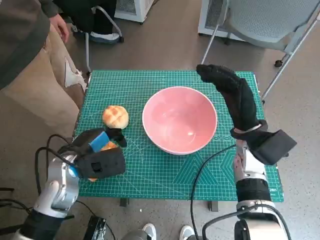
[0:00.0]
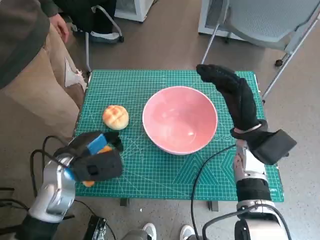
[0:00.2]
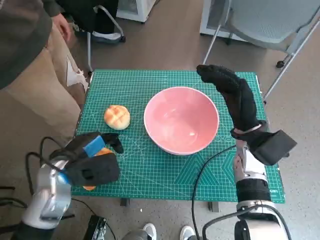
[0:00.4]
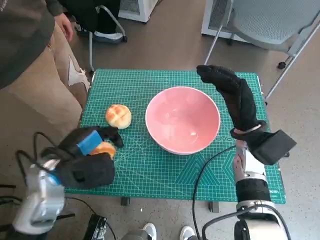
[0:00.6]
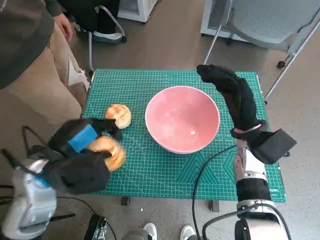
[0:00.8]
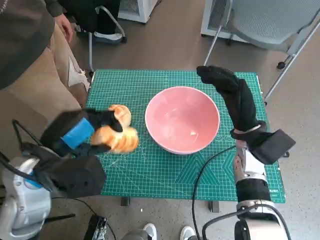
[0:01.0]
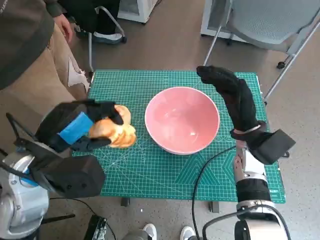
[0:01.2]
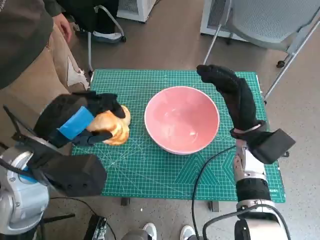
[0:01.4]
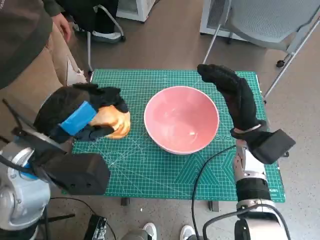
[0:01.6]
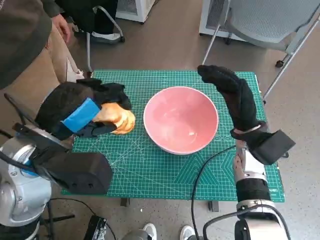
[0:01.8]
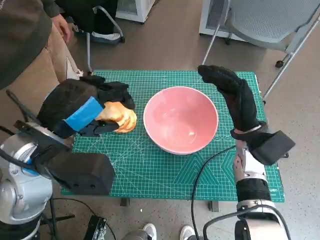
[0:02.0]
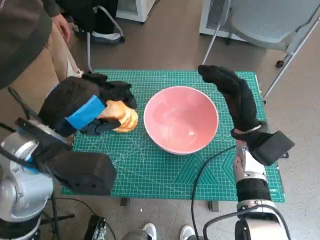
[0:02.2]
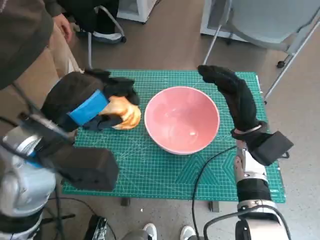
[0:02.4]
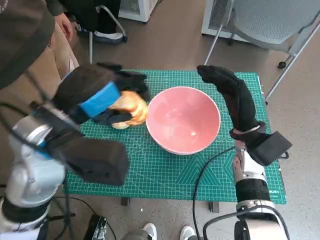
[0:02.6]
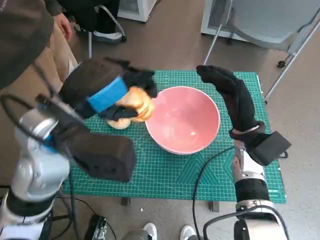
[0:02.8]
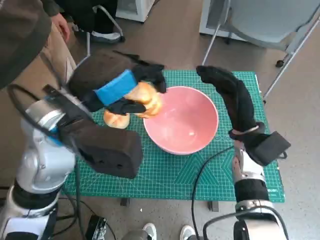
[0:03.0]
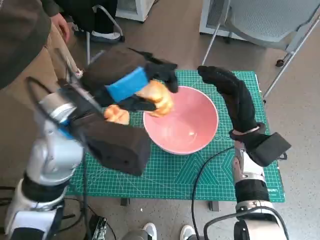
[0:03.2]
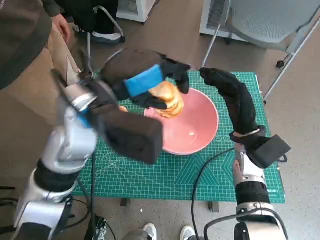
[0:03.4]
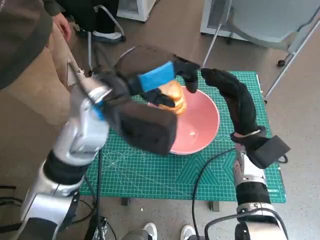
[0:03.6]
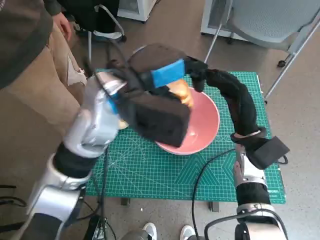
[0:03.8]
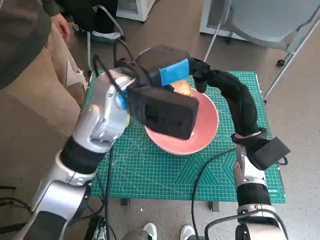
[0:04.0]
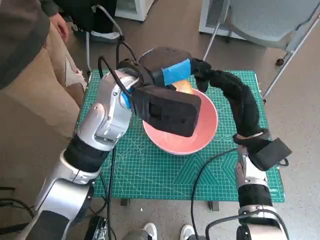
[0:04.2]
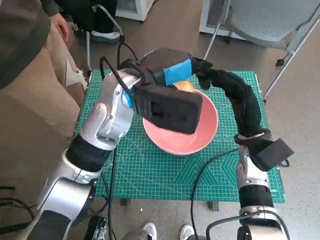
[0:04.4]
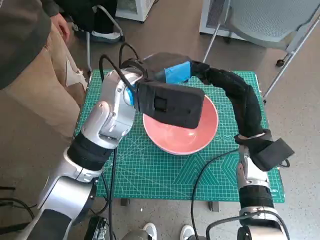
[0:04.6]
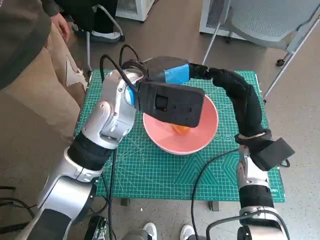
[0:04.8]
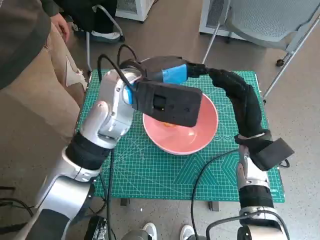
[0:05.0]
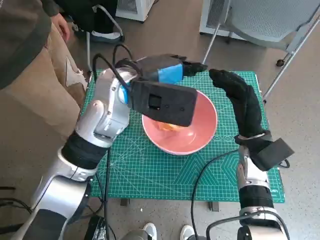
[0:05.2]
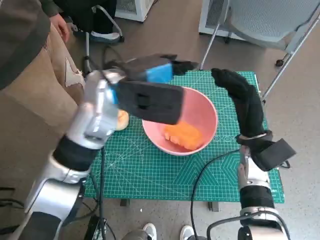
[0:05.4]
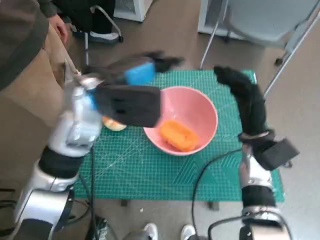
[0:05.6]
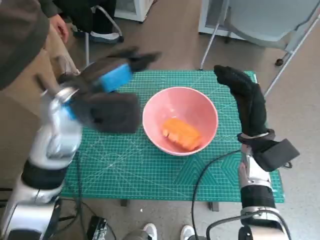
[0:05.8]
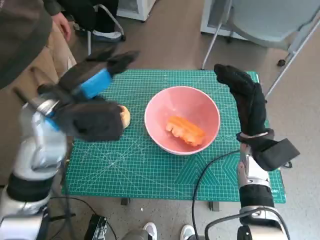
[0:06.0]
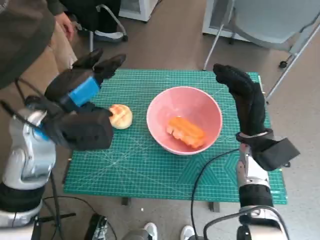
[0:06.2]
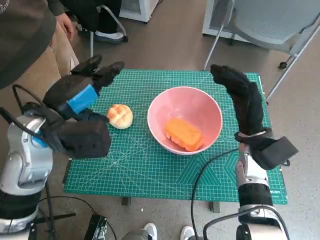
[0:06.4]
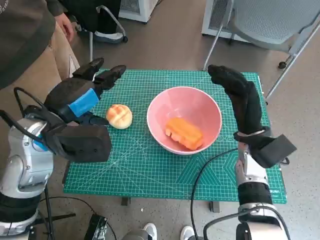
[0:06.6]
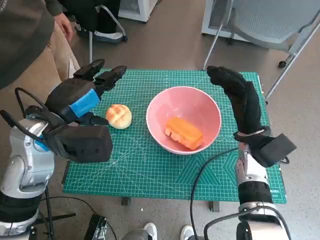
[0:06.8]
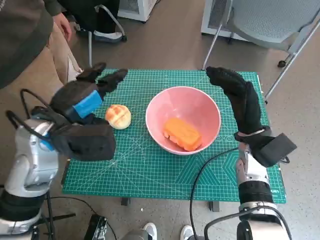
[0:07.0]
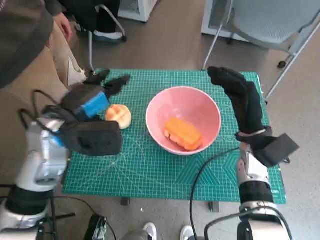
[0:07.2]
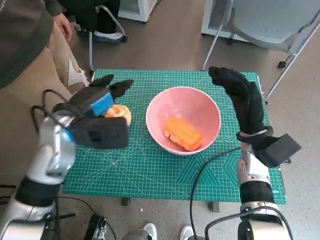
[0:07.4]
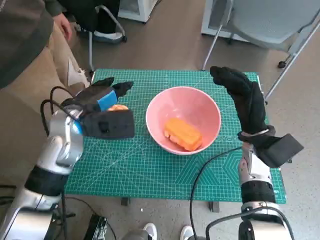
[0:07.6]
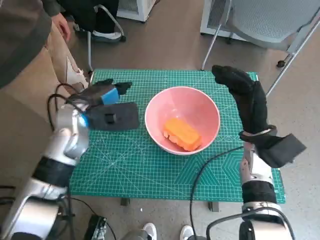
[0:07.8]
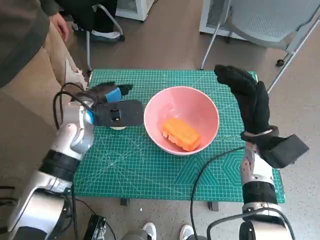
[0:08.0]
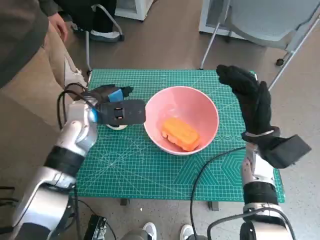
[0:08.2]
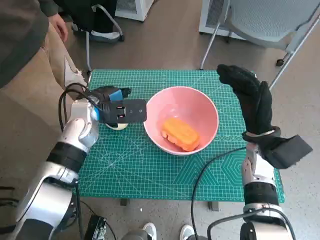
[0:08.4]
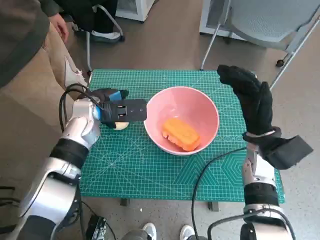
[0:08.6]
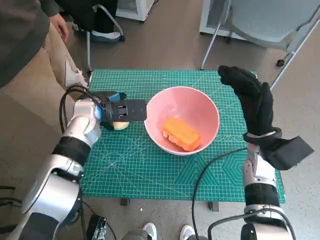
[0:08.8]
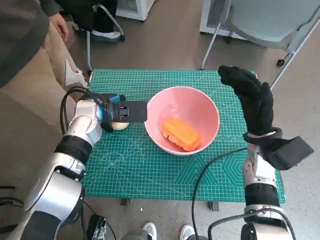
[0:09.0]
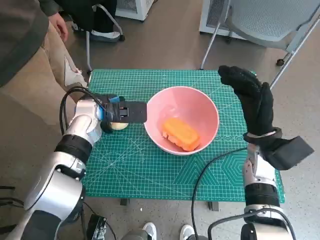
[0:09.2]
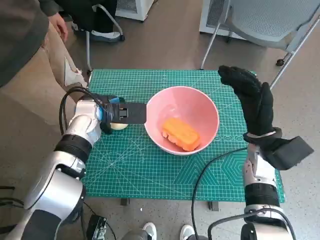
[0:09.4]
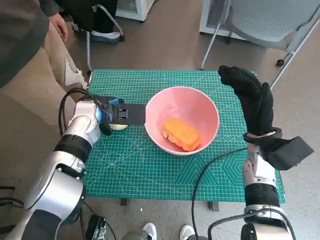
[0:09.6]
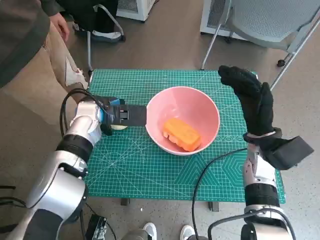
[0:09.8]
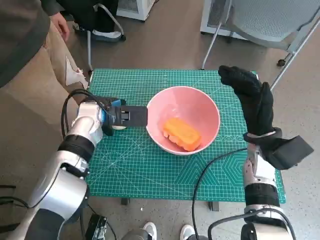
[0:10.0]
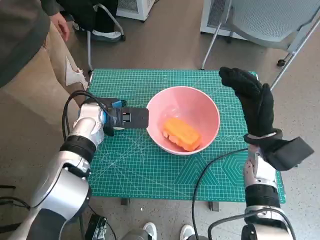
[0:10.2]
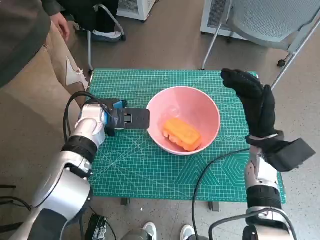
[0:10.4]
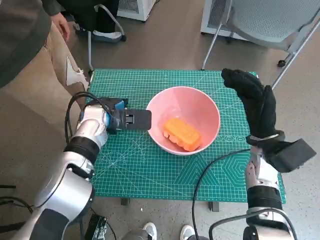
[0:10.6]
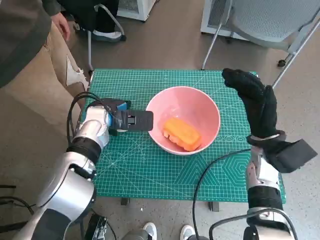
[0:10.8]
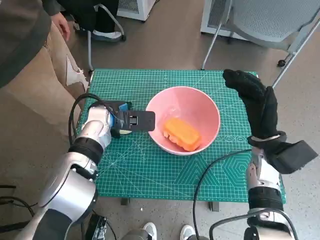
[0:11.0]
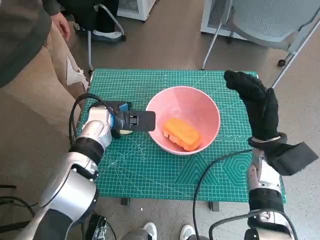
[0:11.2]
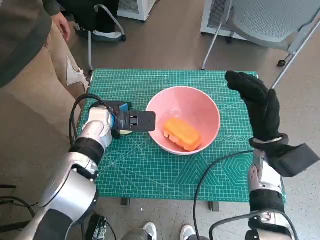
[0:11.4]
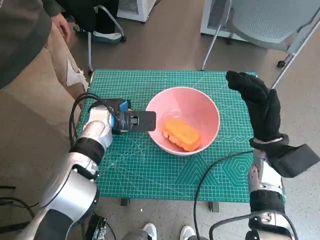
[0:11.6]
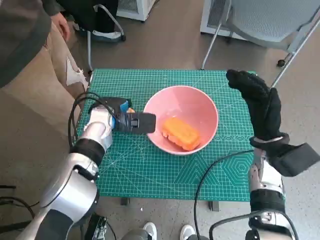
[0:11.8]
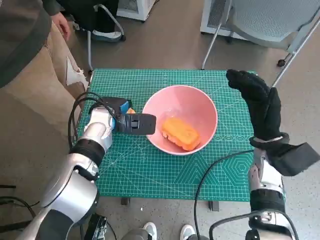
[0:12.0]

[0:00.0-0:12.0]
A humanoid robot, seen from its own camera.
Step, 0:00.0 to 0:05.2: Place the long bread in pink bowl with left hand.
Step, 0:05.4 to 0:11.4: Grasp the round bread with left hand.
0:00.0 to 0:01.6: The left hand shifts roughly 15 cm upward.
0:01.6 to 0:03.0: The left hand goes roughly 5 cm to the right.
0:03.0 to 0:04.4: The left hand goes some 10 cm forward and to the right.
0:04.4 to 0:06.0: The left hand moves to the left, about 10 cm.
0:06.0 to 0:07.6: The left hand travels downward by roughly 5 cm.
0:07.6 to 0:09.0: The left hand is displaced forward by some 5 cm.
0:09.0 to 0:12.0: There are only small adjustments of the hands.

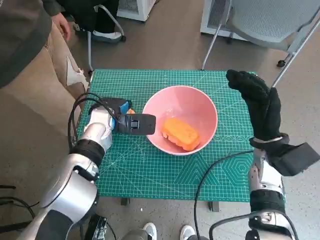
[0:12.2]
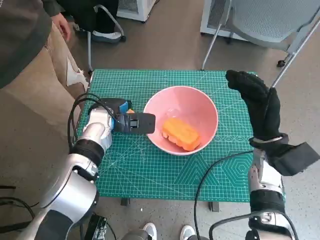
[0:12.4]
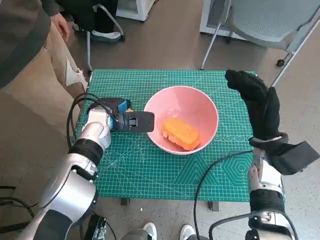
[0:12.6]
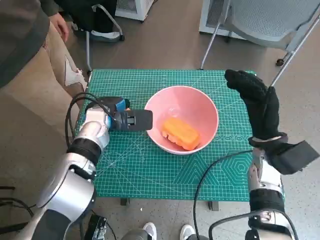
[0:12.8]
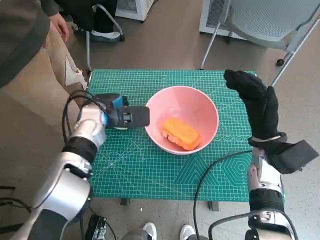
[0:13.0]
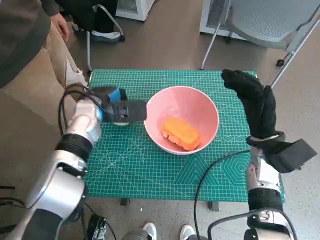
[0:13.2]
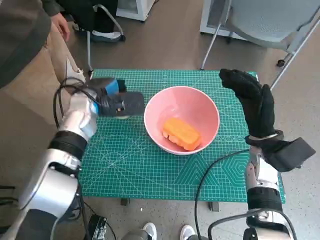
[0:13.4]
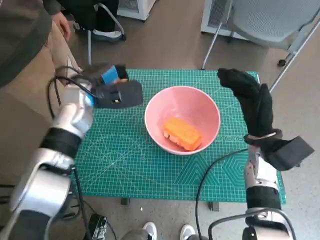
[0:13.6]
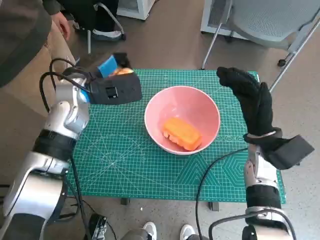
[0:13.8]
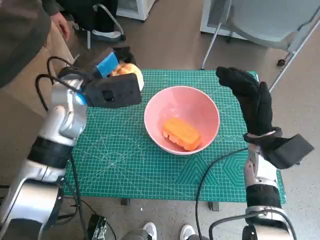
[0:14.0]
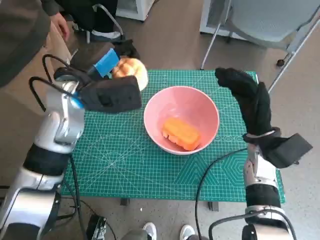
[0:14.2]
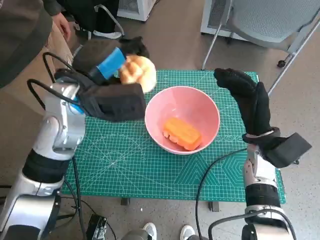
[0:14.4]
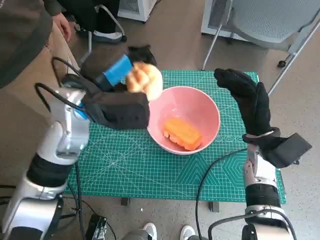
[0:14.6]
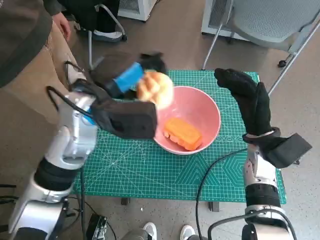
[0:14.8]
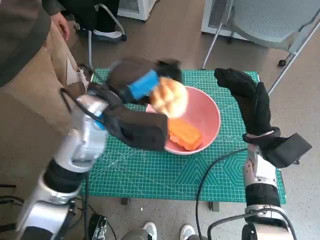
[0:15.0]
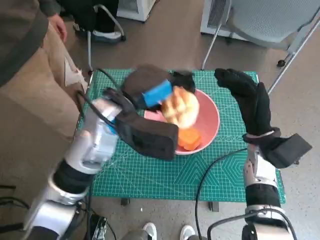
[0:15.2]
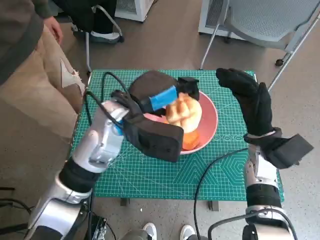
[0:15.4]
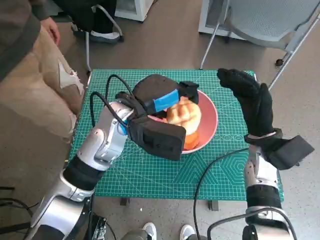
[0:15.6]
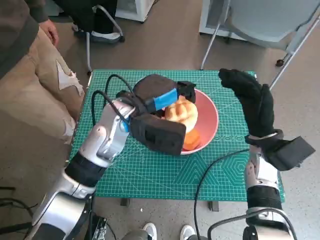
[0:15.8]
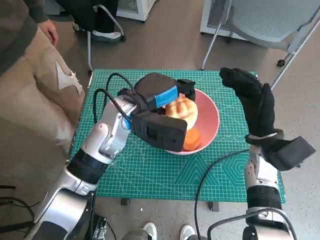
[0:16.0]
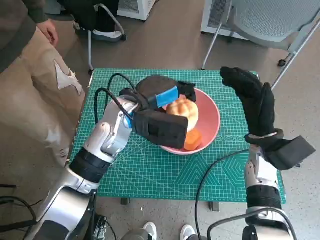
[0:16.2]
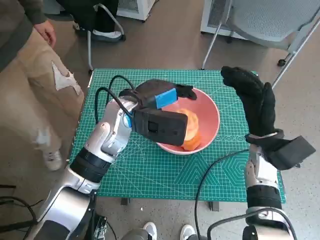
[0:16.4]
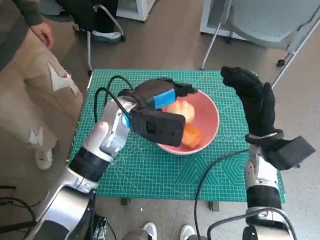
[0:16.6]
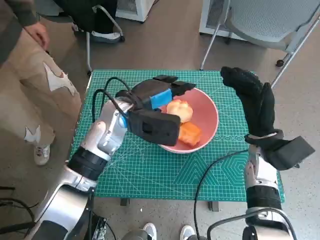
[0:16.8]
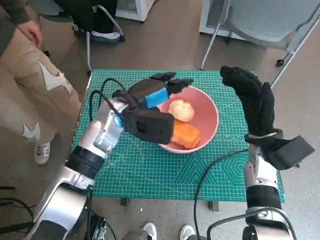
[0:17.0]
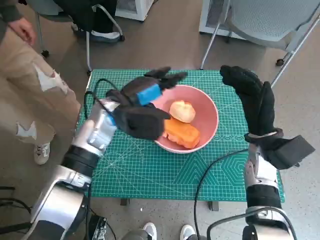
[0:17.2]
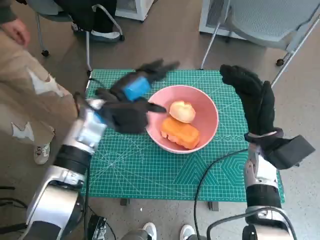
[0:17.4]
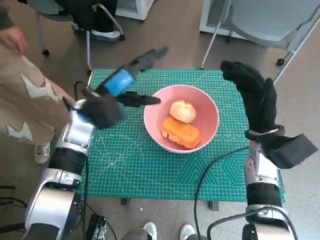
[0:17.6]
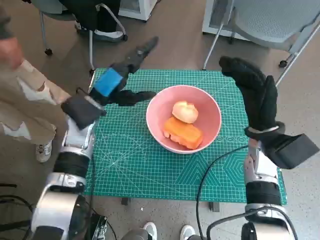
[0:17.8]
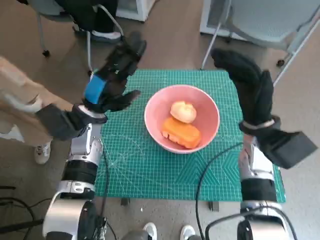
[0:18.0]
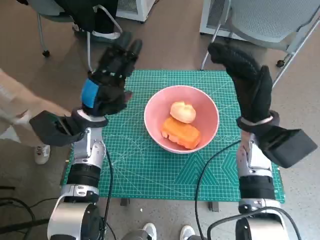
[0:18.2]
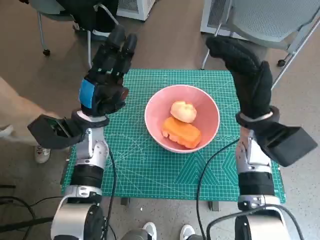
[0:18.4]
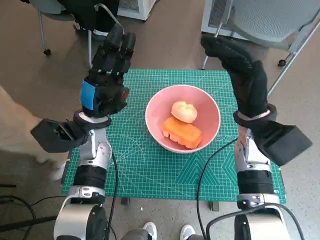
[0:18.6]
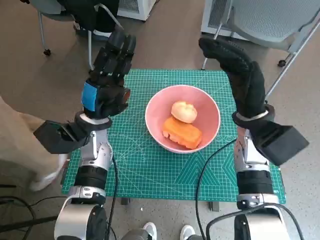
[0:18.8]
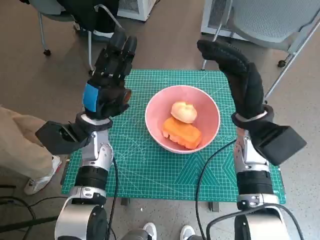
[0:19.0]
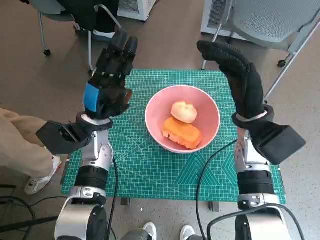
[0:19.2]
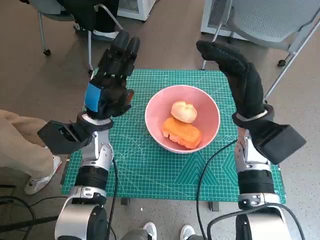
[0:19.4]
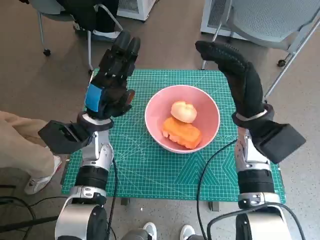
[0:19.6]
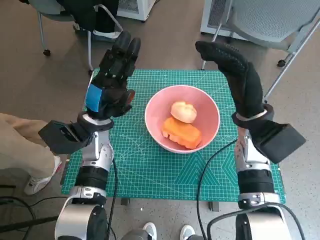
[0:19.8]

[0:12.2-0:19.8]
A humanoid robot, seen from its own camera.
Step, 0:12.2 to 0:16.6: Place the round bread in pink bowl with left hand.
0:12.2 to 0:13.8: The left hand moves upward, some 10 cm.
0:13.8 to 0:15.2: The left hand moves to the right and backward, approximately 10 cm.
0:15.2 to 0:16.8: The left hand shifts by approximately 5 cm.
0:16.8 to 0:18.2: The right hand changes place by approximately 5 cm. The left hand travels to the left by about 10 cm.

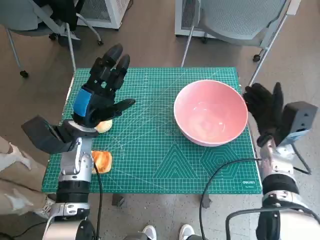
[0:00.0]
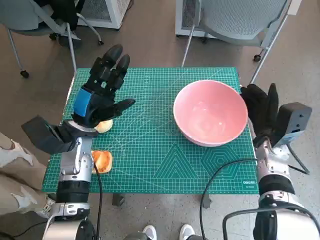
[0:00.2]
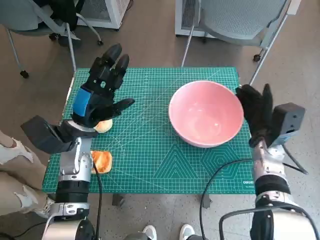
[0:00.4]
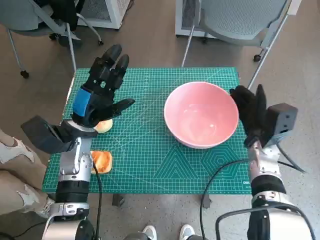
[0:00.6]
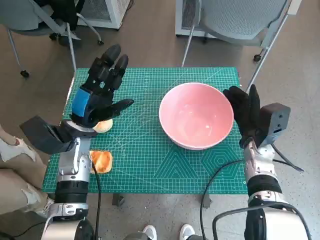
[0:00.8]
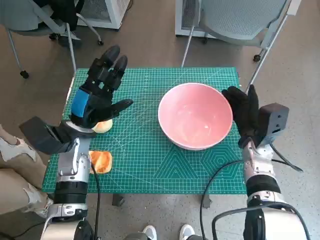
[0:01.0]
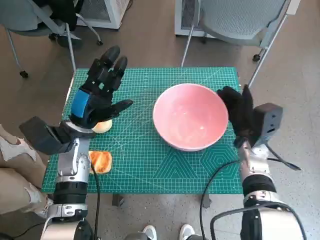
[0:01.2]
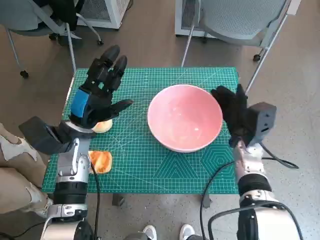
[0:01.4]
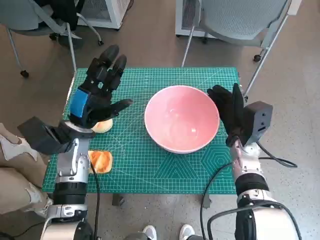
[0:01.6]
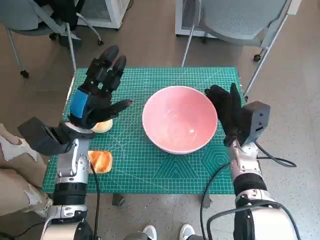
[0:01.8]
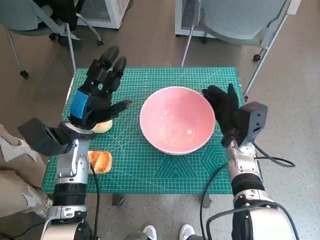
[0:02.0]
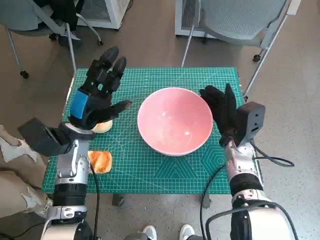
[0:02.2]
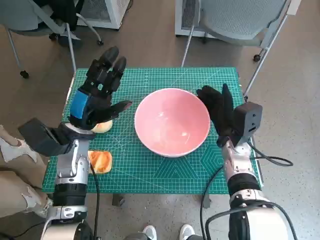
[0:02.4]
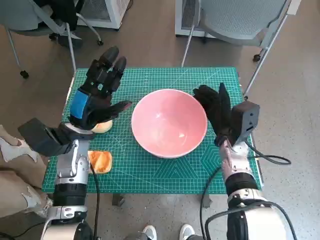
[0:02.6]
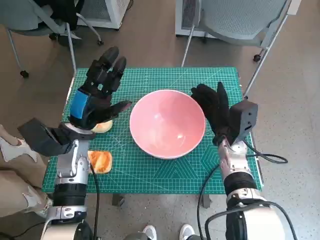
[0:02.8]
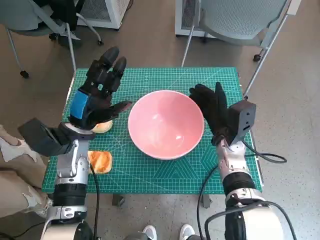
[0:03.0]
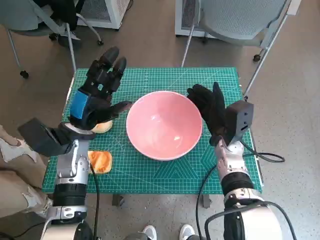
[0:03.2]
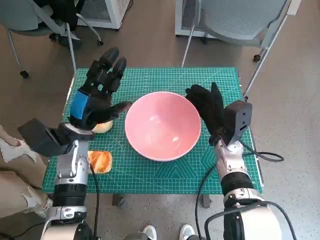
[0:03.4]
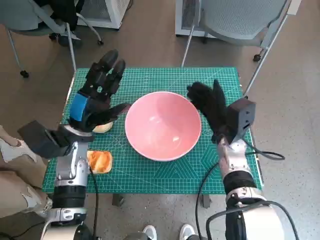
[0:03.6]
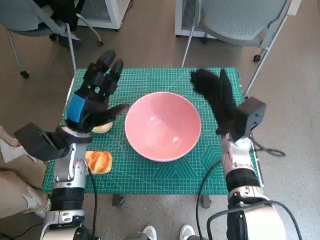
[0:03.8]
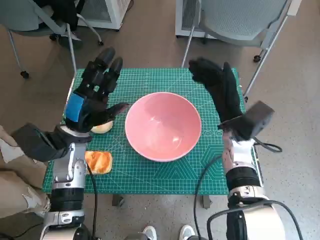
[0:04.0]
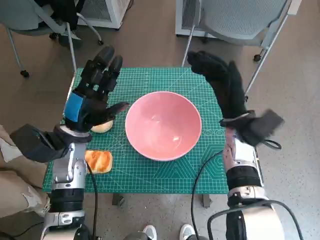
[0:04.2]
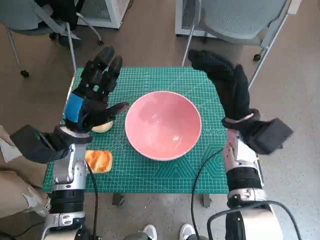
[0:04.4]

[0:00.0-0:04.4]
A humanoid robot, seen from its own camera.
Step, 0:00.0 to 0:03.8: Move the pink bowl to the center of table with right hand.
0:00.0 to 0:01.4: The right hand goes about 5 cm to the left.
0:01.4 to 0:03.0: The hands move only a little.
0:03.0 to 0:04.4: The right hand travels upward by roughly 5 cm.
